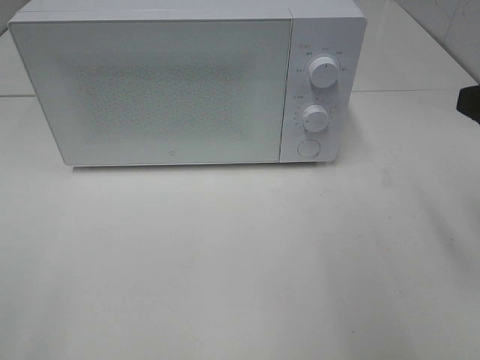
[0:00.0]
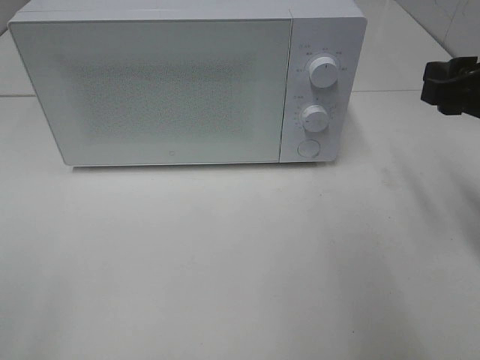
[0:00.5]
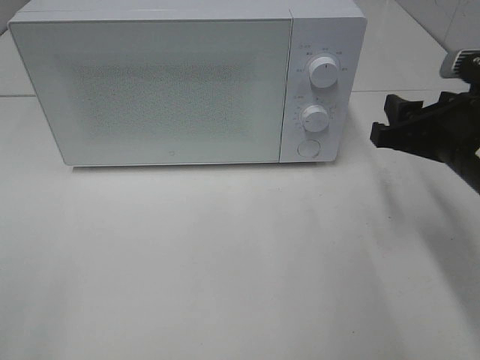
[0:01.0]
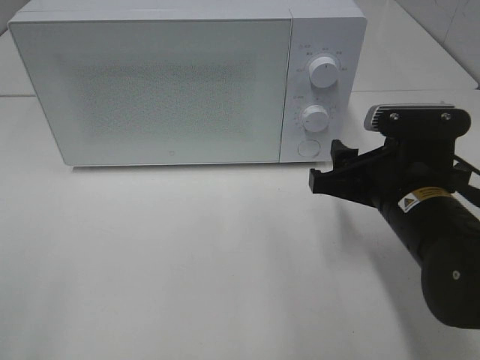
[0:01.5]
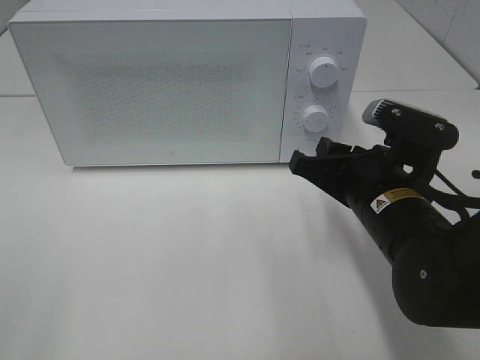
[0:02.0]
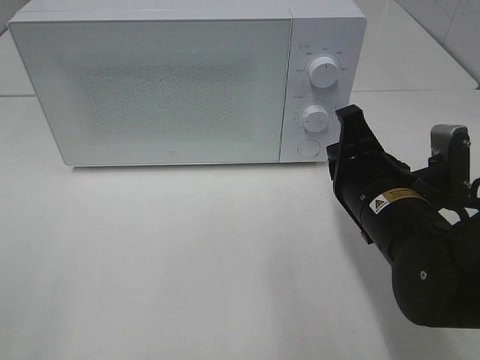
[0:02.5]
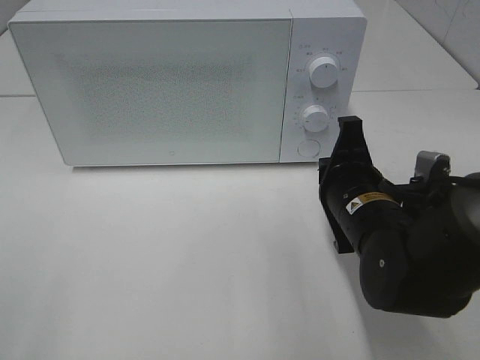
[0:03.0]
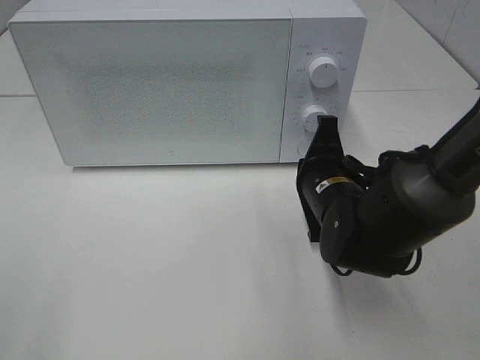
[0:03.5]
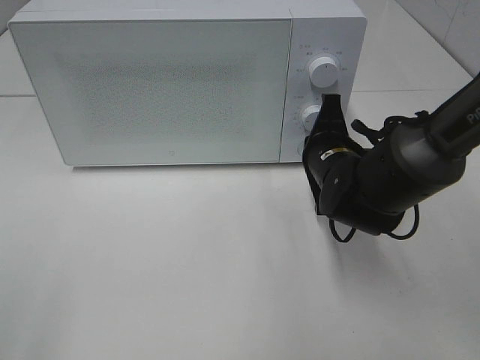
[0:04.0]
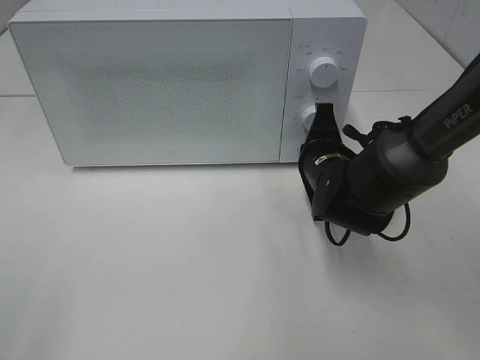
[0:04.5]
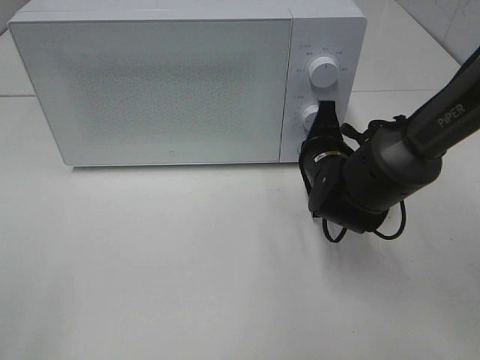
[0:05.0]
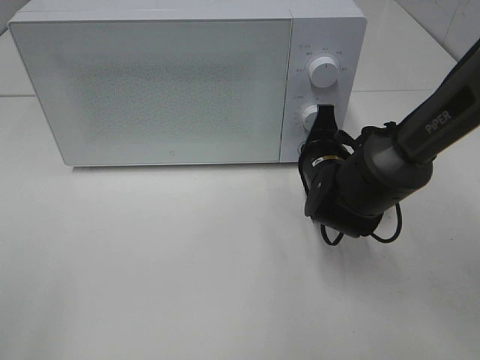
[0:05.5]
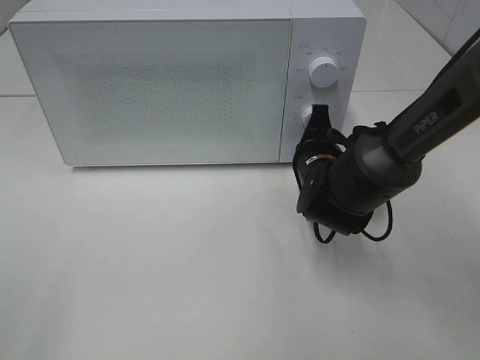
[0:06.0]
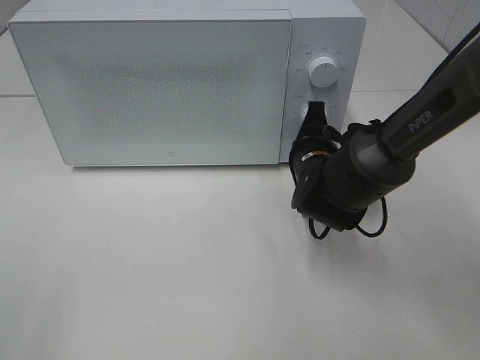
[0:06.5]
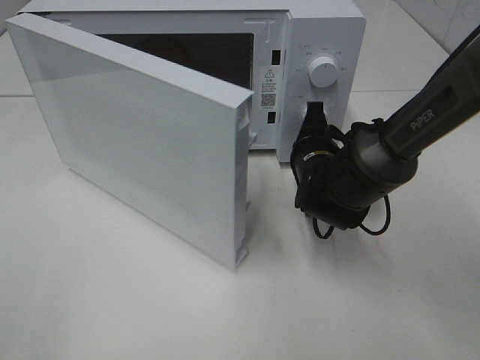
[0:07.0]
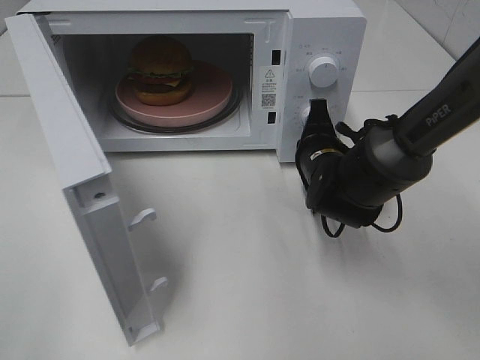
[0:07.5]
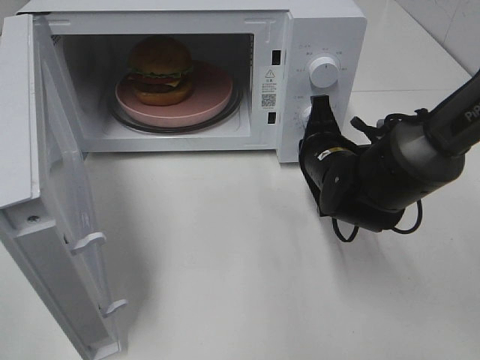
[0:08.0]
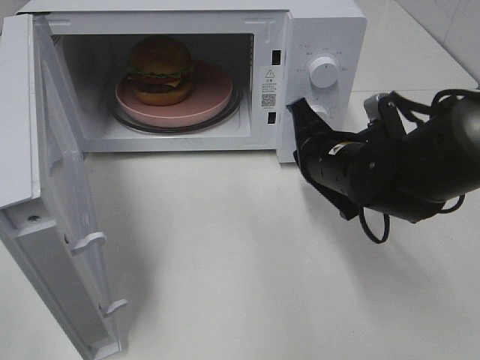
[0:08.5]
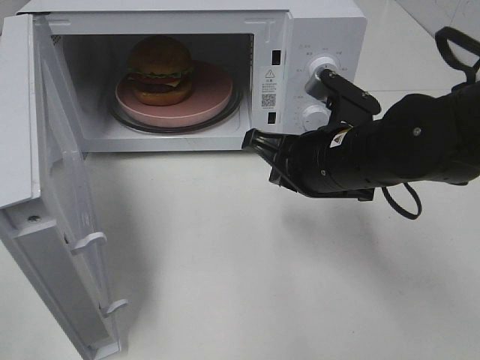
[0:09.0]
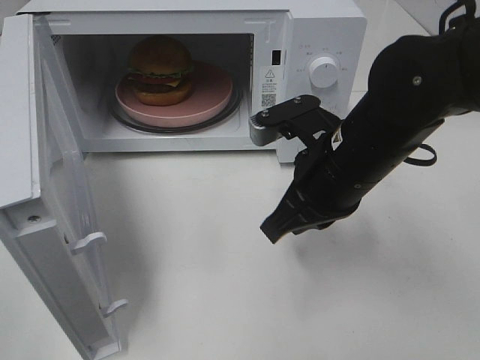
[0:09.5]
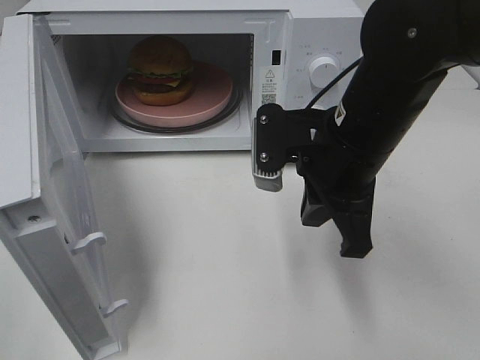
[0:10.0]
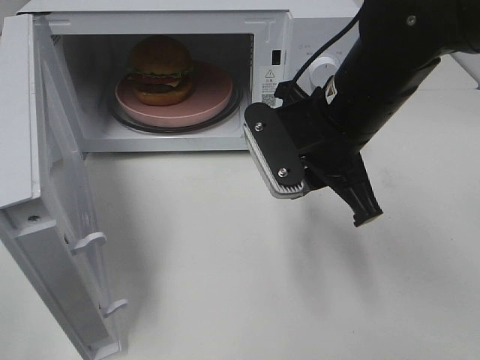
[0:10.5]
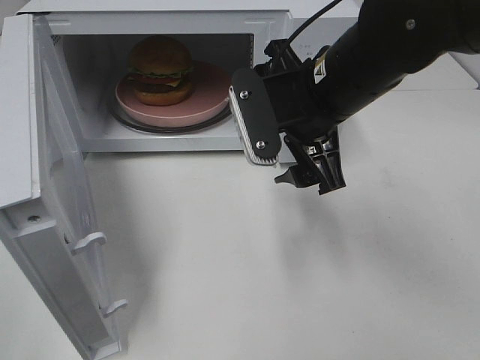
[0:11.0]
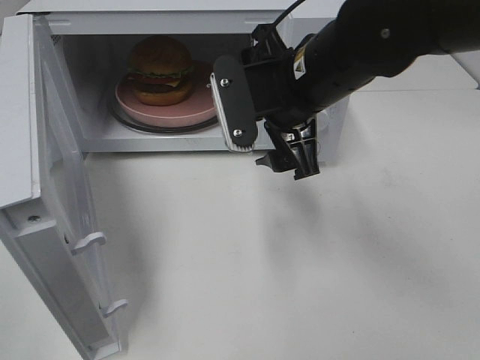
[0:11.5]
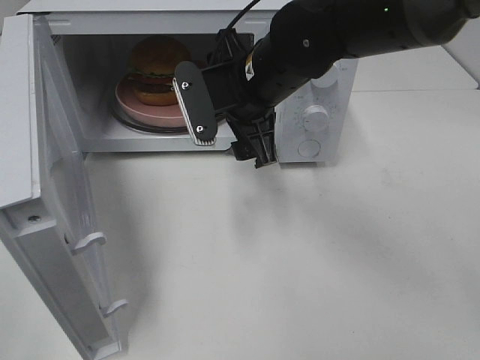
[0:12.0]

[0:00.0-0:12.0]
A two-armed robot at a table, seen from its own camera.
Task of the whole recording: Heat the burger.
Step, 0.0 to 8.0 s: Right hand: press the switch.
0.0 to 2.0 s: The right gripper travels downward and to the left by some 20 cm.
2.0 to 4.0 s: The right gripper moves forward, approximately 10 cm, and closes its fingers.
4.0 to 6.0 s: The grippers make only small movements.
8.0 to 10.0 s: The right gripper is displaced upward and backward by roughly 15 cm.
10.0 to 12.0 s: The right gripper heads forward and to the left, covering some 10 cm, and opens.

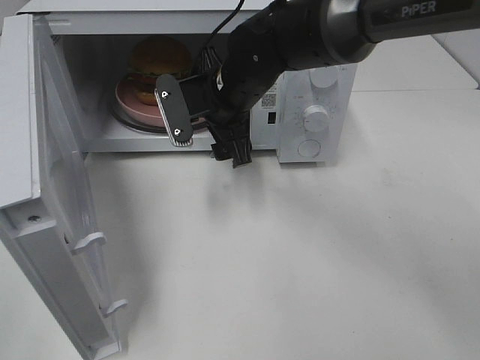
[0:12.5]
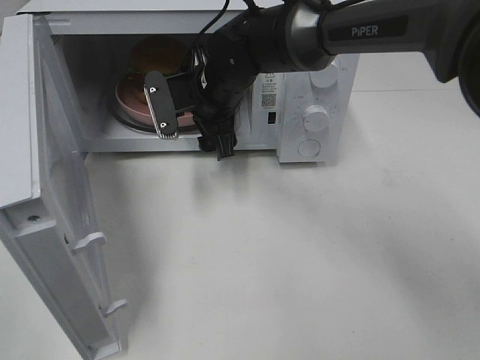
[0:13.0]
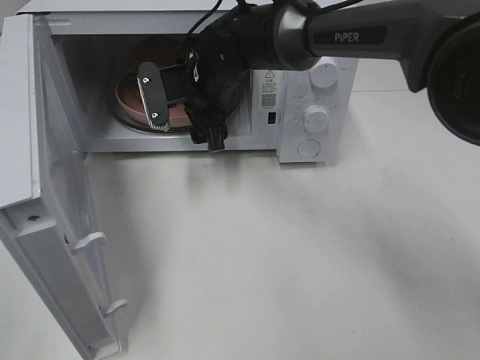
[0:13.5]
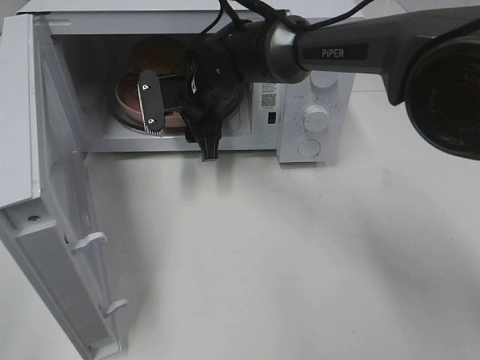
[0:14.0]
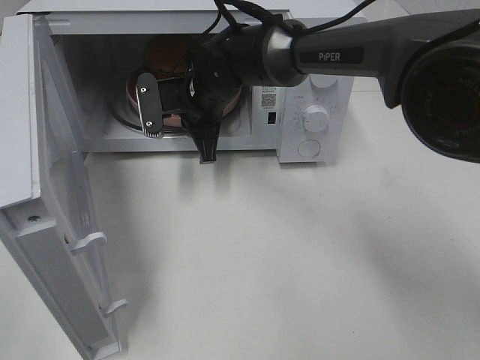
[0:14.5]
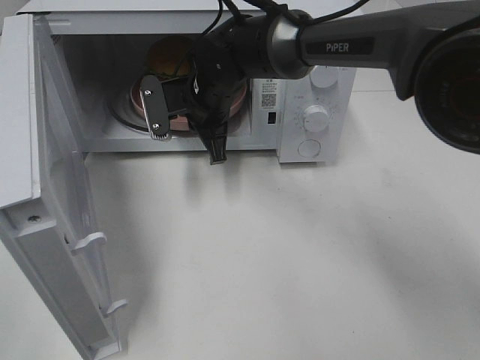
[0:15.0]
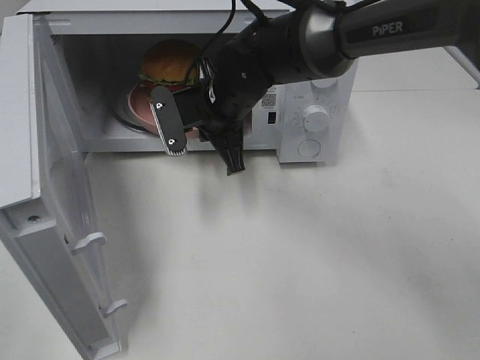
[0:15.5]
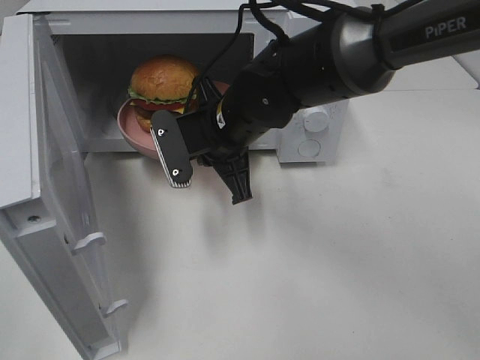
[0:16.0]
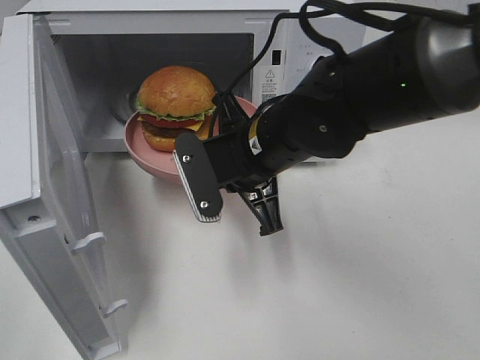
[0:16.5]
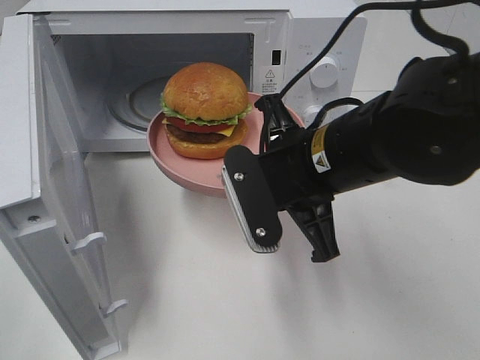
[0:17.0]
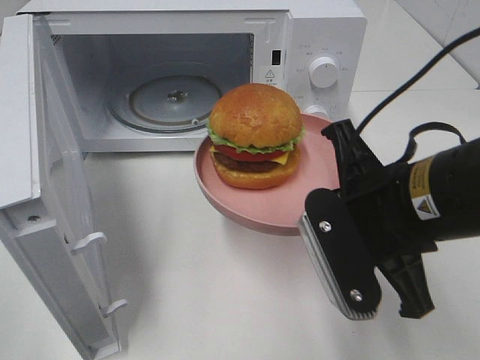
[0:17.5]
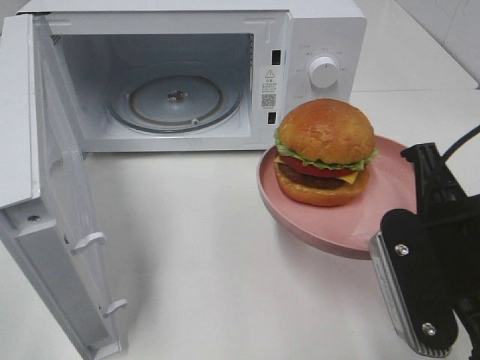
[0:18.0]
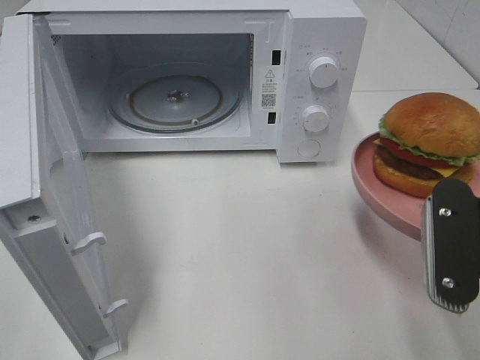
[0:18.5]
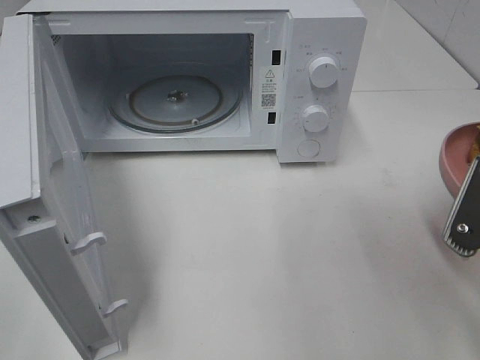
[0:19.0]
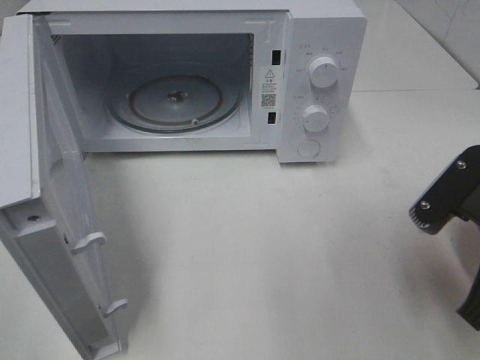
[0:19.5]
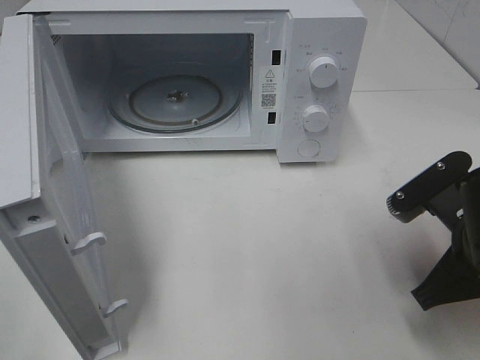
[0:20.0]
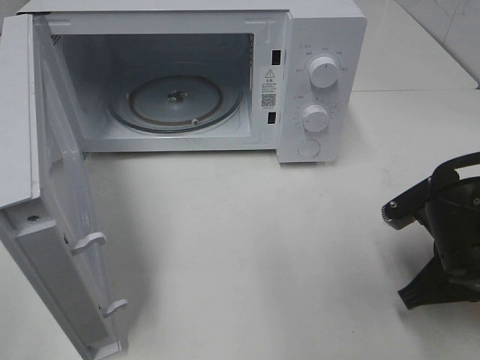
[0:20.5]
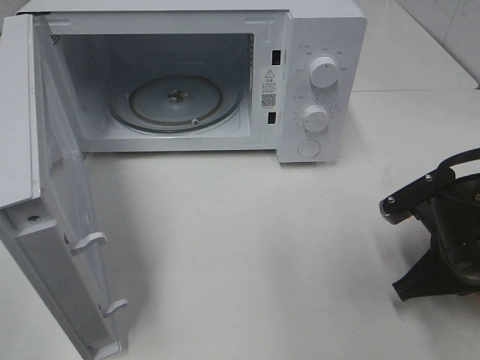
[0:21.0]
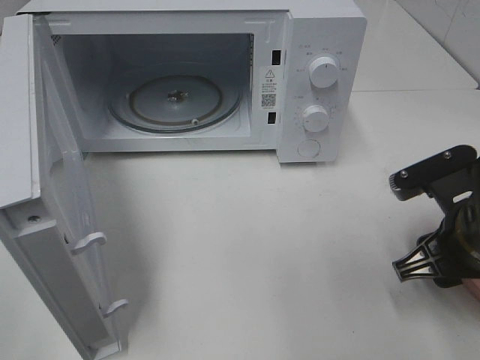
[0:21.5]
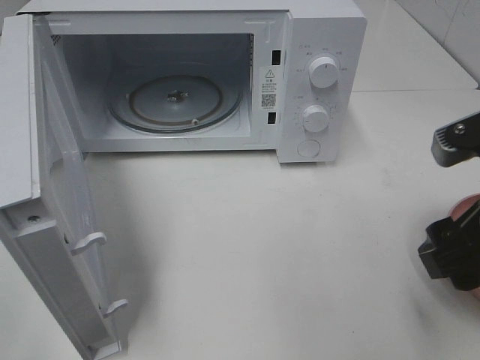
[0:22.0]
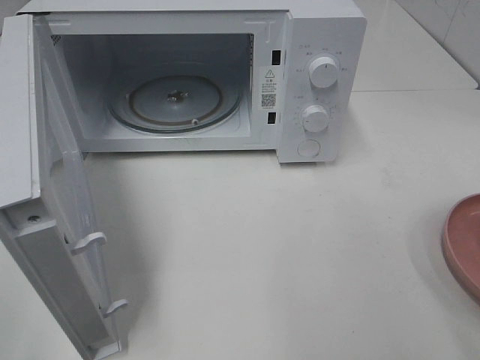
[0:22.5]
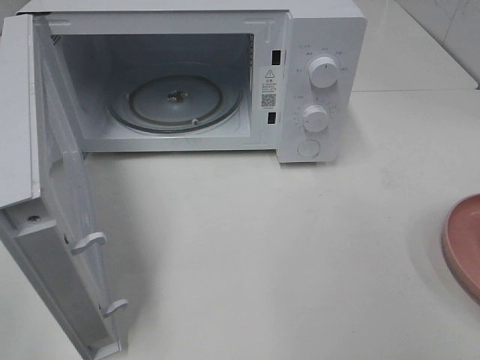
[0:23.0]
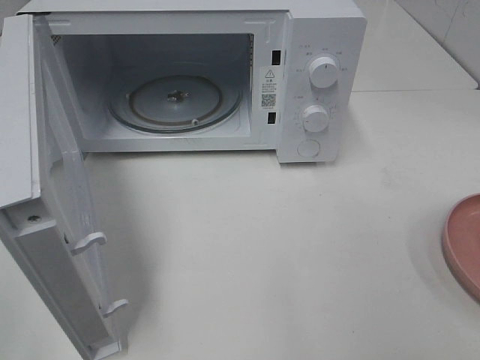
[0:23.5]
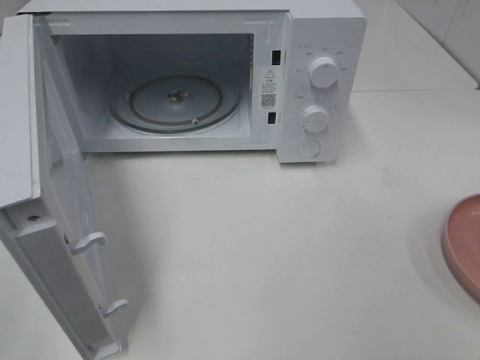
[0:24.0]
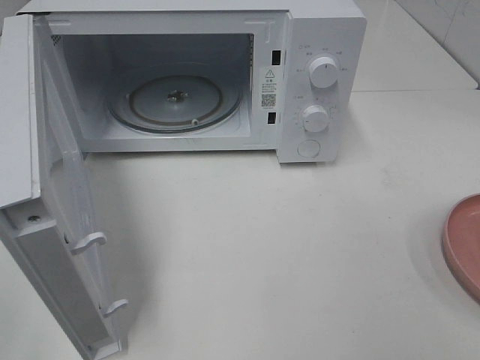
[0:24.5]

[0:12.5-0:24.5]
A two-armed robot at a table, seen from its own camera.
Task of the whole recording: Heat the burger.
Step, 14.5 to 21.0 s: Right hand: place the plate on the table.
12.5 to 14.5 s: The right gripper shifts by approximately 5 cm, and closes its fingers.
14.5 to 16.5 s: The right gripper heads backward and to the right, covering approximately 15 cm.
16.5 to 18.5 s: The right gripper goes roughly 25 cm to the right and backward.
18.5 to 20.5 s: The right gripper is displaced downward and forward by some 10 cm.
20.5 to 22.5 s: The right gripper goes approximately 20 cm upward and backward, and opens.

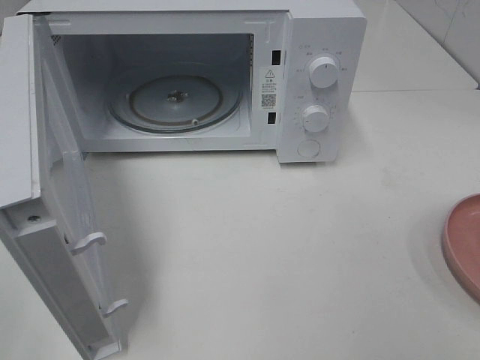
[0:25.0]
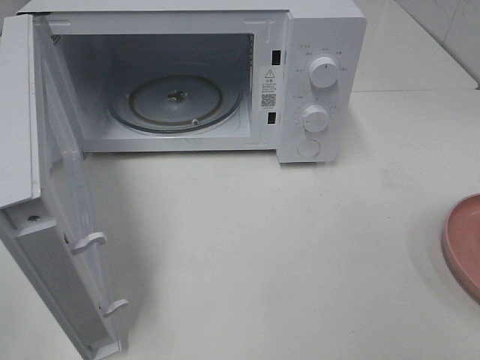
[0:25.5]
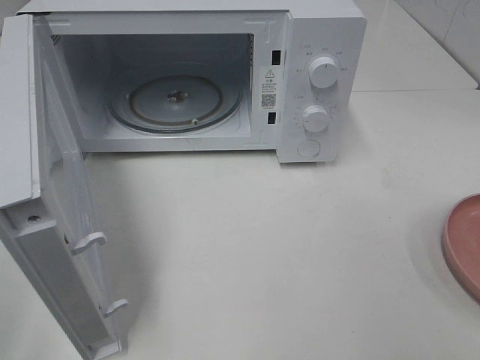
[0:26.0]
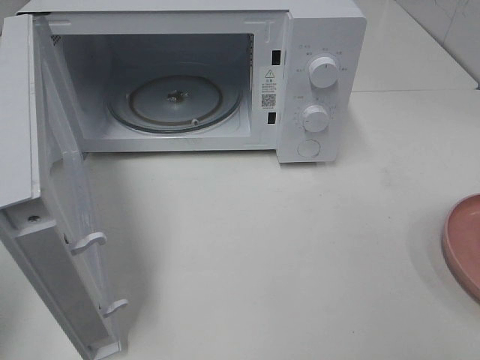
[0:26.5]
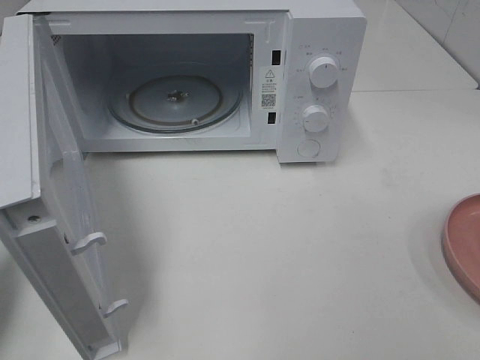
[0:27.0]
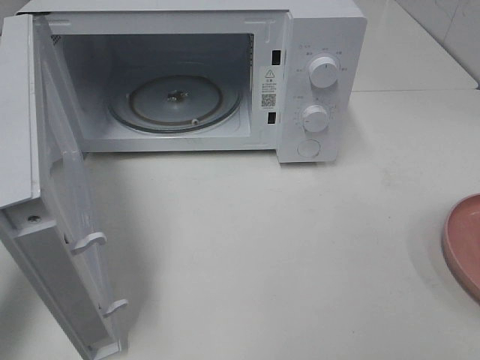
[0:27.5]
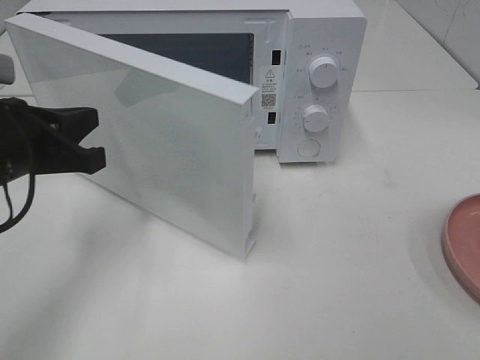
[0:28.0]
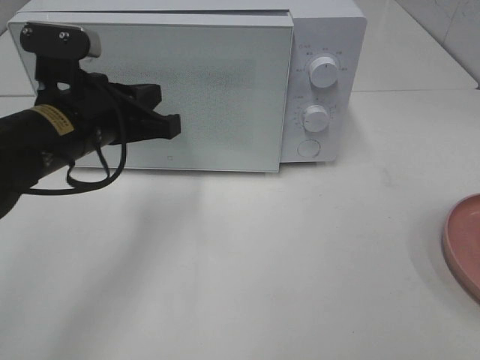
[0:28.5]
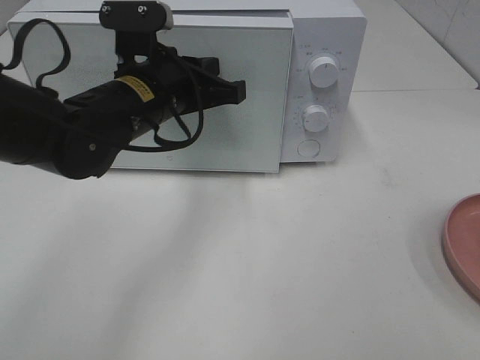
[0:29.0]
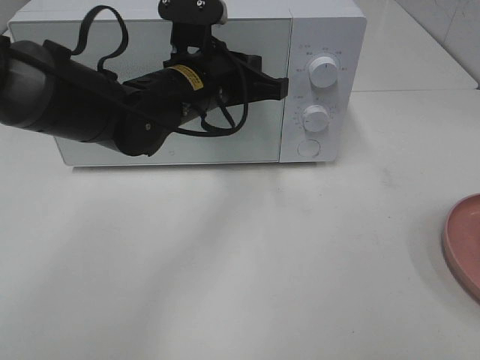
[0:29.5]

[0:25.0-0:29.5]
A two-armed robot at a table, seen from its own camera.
Task of the whole recording: Heat the burger.
25.0 to 27.0 s: The left gripper travels forward by roughly 15 cm, and closes its fingers.
27.0 to 29.5 s: The left gripper is displaced to the right and forward by approximately 35 cm.
